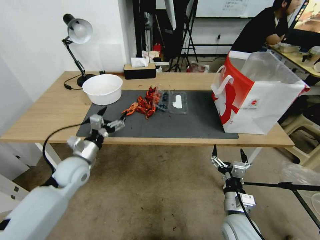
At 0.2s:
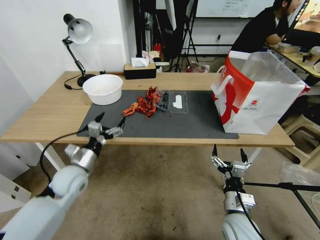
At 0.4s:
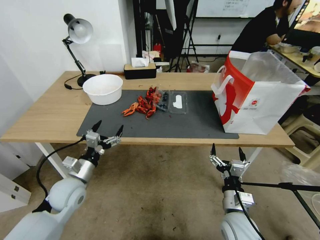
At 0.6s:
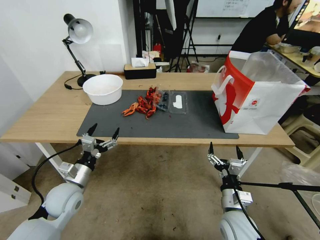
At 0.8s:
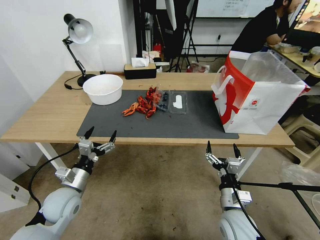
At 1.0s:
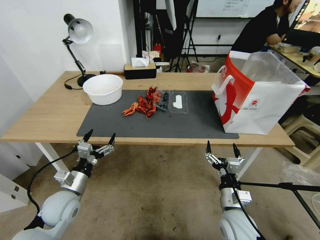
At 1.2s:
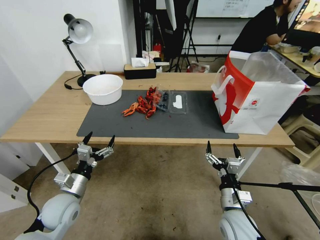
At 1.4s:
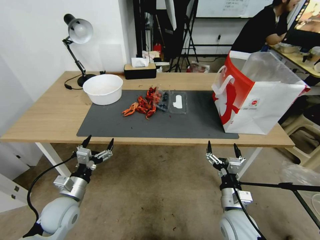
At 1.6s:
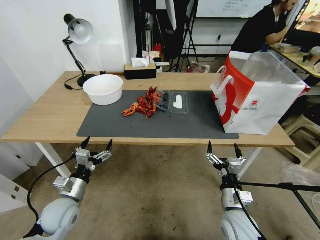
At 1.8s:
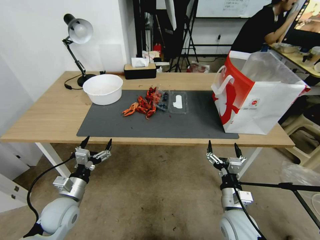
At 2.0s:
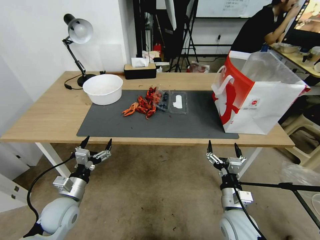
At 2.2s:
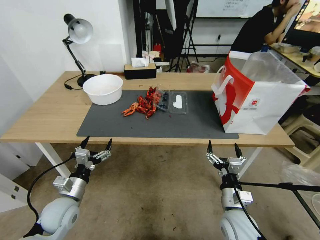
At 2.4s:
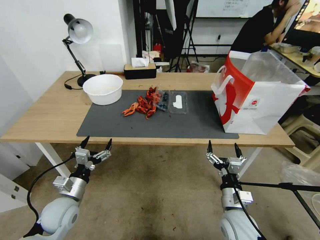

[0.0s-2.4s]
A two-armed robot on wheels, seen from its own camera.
0.0s to 1.2s: The left gripper travels backward and downward by some 10 cm.
1.2s to 2.4s: The grippers move only a little.

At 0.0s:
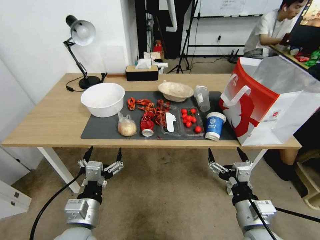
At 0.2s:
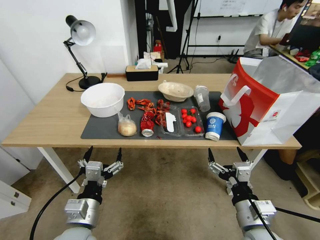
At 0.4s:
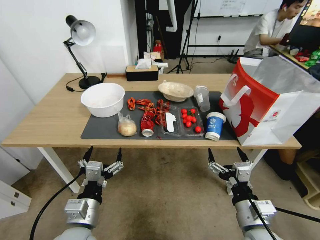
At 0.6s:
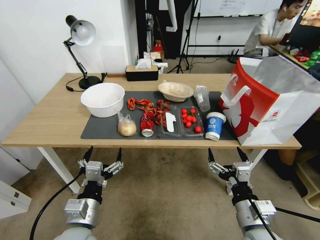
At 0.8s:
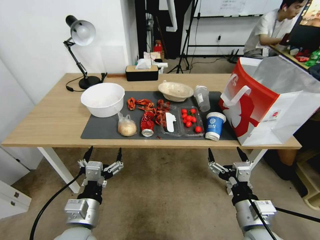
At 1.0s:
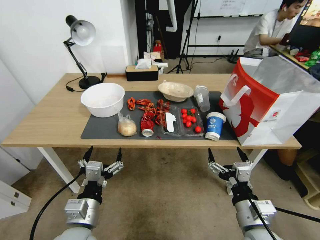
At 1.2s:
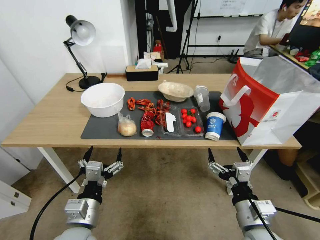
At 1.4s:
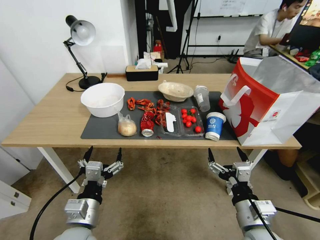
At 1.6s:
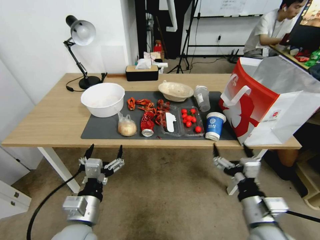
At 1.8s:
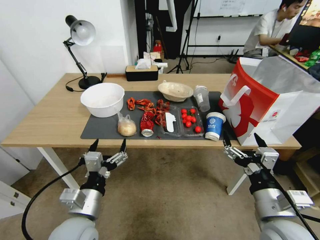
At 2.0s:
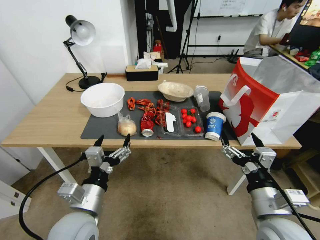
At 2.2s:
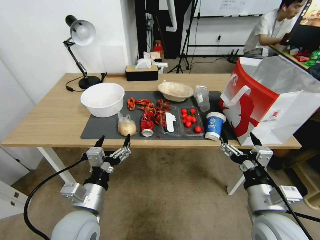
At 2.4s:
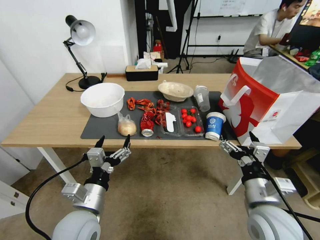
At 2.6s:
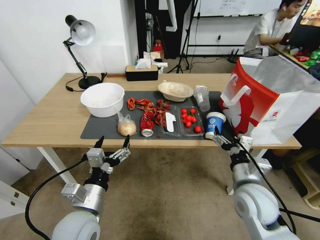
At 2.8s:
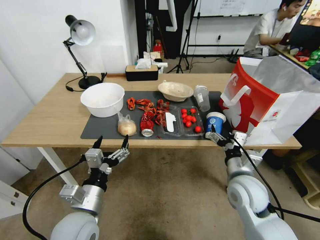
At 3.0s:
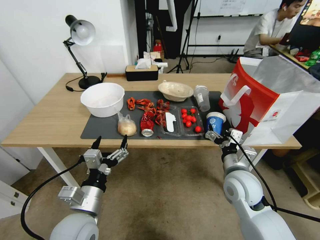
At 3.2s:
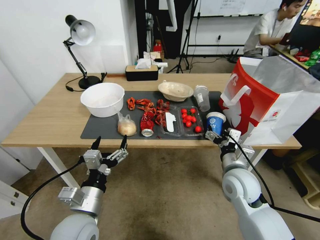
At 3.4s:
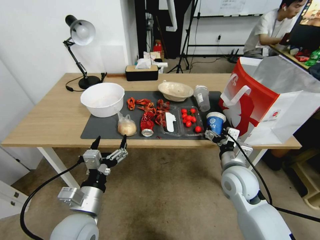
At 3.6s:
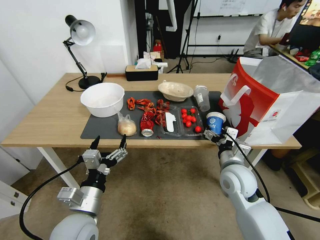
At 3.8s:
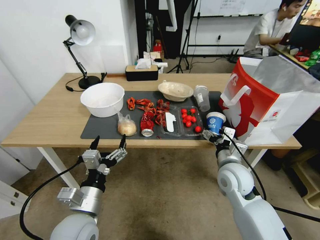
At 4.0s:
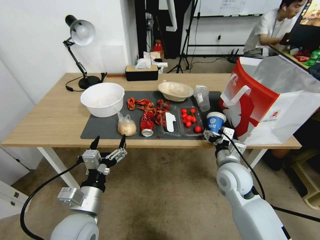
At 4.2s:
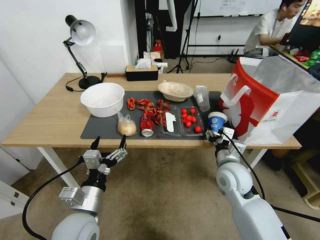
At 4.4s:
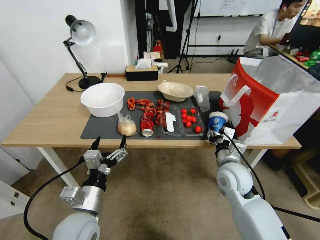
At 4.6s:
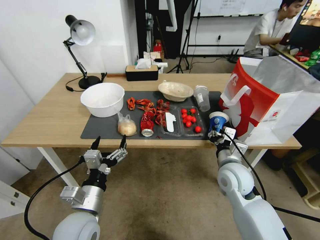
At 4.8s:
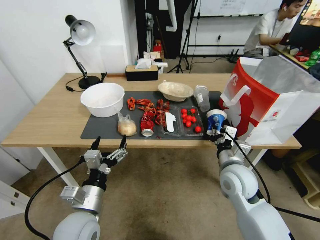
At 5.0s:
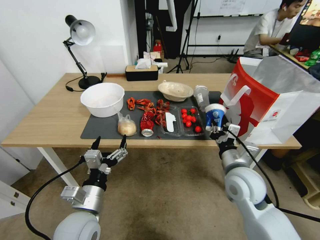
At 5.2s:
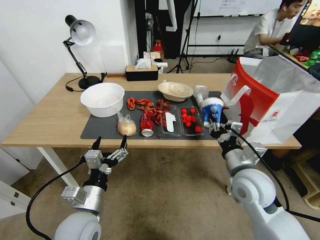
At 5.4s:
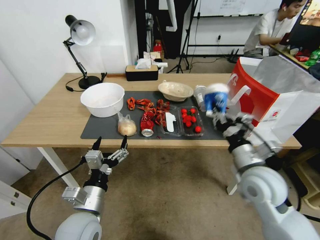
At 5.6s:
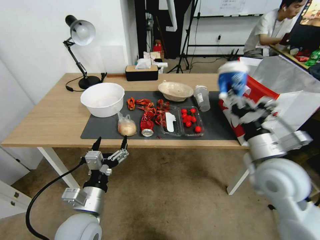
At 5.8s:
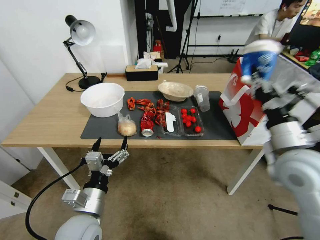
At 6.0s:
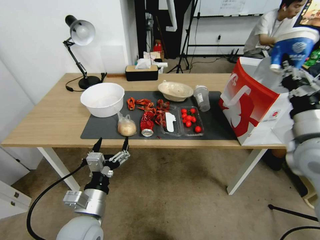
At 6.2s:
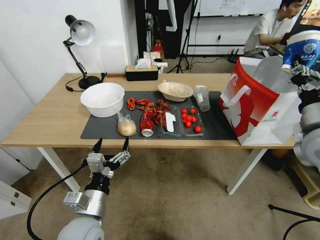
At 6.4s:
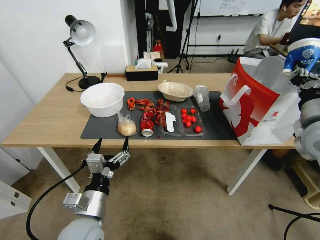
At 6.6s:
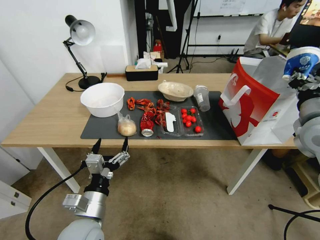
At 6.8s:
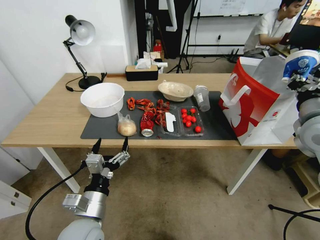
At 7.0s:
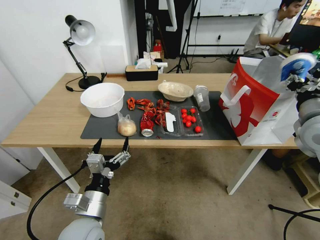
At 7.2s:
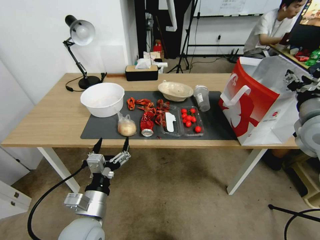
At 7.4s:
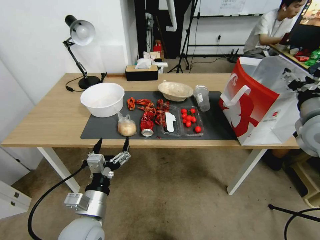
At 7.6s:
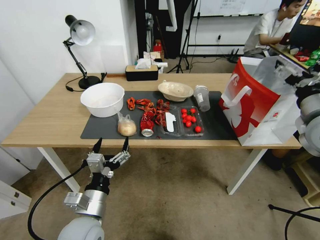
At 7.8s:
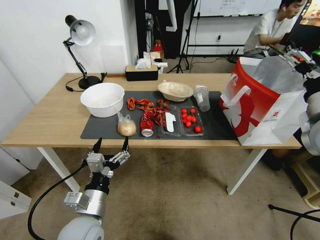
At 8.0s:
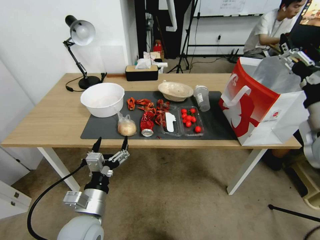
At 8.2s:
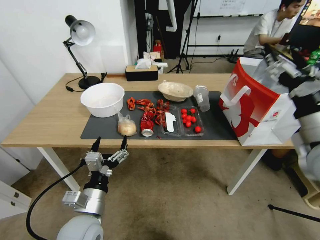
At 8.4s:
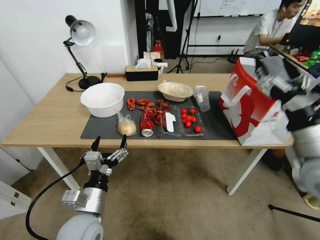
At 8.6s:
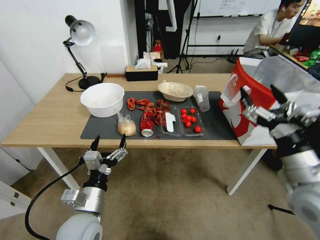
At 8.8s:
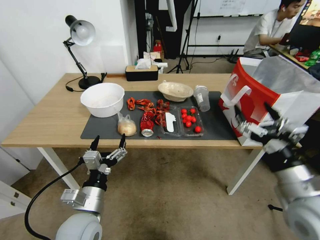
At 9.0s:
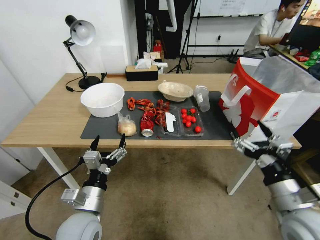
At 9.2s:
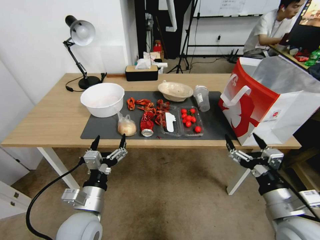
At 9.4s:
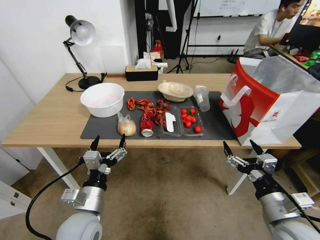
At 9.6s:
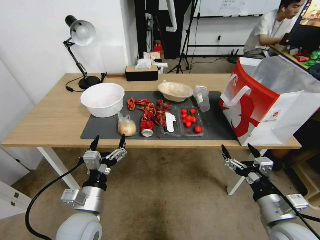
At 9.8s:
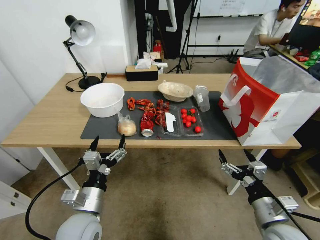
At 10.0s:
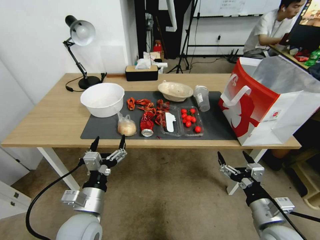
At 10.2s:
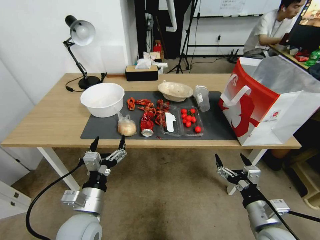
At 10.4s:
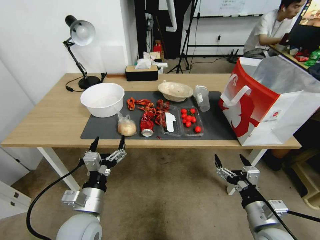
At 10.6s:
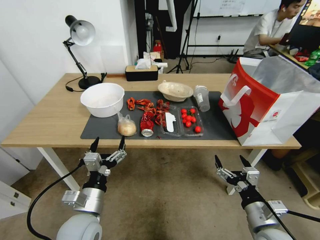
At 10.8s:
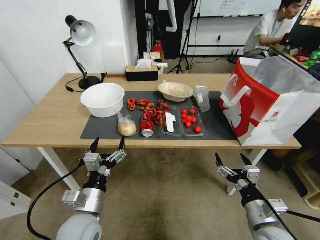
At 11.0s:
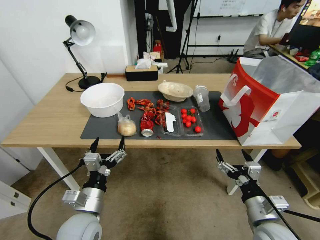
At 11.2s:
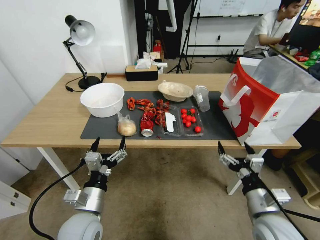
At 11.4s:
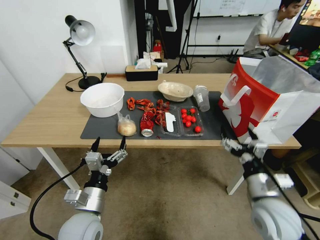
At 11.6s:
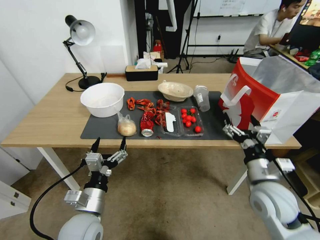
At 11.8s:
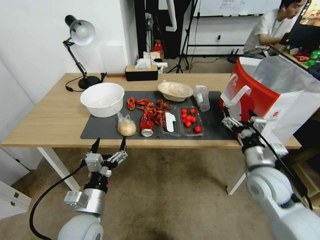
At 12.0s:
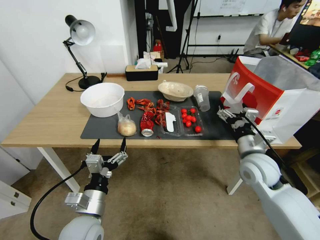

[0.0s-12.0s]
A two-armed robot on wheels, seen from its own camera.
1.6s to 3.0s: The right gripper moves forward, some 15 cm.
3.0s to 4.4s: The right gripper closes.
4.4s to 6.0s: The right gripper moves upward and to the right, approximately 20 cm.
6.0s to 7.6s: The right gripper shifts by roughly 5 cm, and opens.
7.6s to 9.0s: The right gripper goes approximately 20 cm backward, downward and to the left.
9.0s to 10.4s: The right gripper moves downward, roughly 10 cm.
10.4s to 12.0s: The right gripper shifts about 20 cm forward and upward.

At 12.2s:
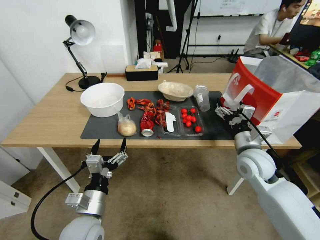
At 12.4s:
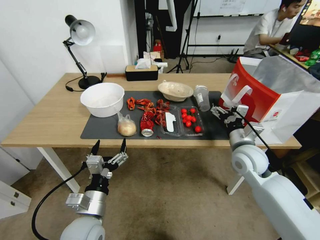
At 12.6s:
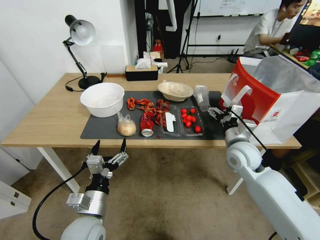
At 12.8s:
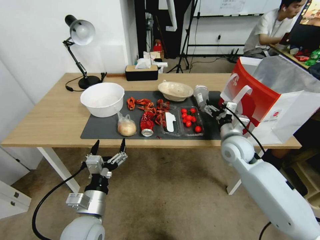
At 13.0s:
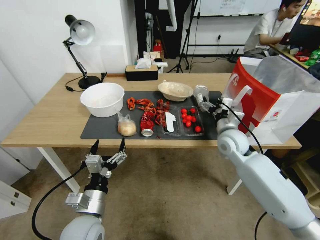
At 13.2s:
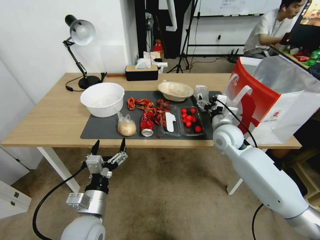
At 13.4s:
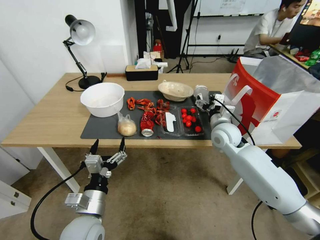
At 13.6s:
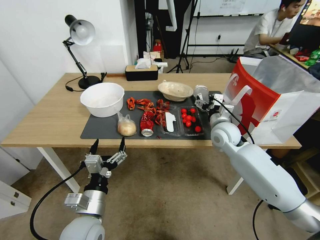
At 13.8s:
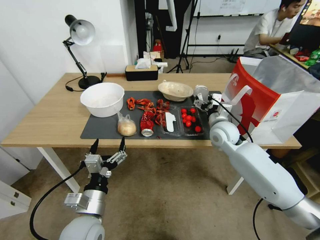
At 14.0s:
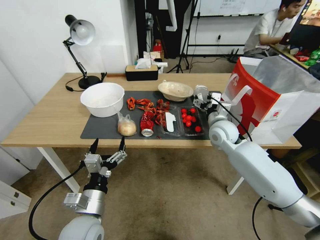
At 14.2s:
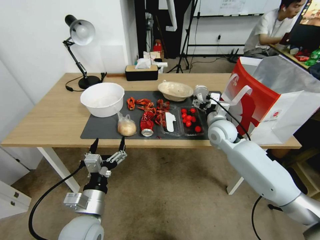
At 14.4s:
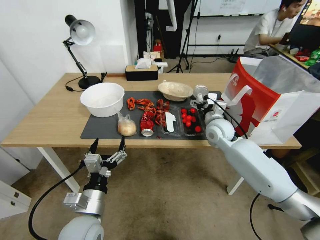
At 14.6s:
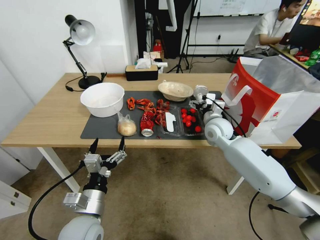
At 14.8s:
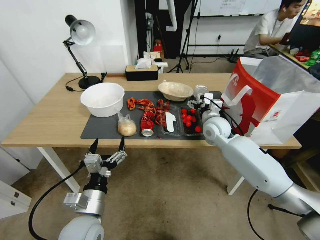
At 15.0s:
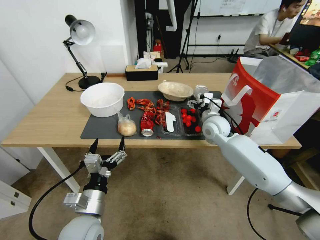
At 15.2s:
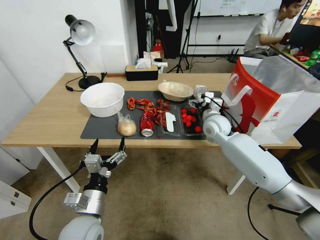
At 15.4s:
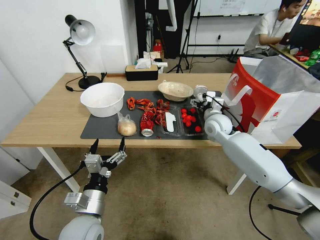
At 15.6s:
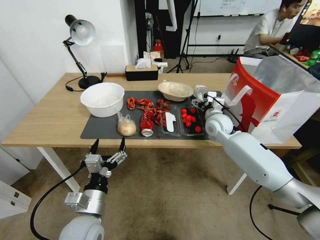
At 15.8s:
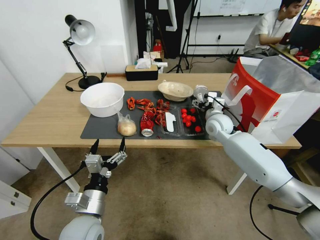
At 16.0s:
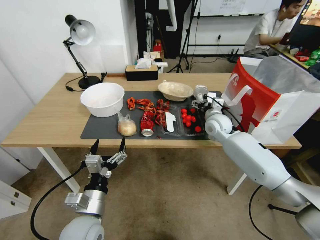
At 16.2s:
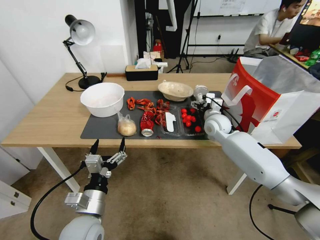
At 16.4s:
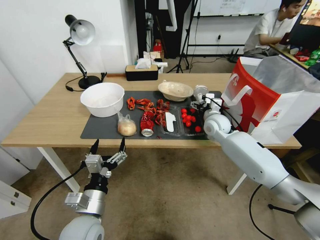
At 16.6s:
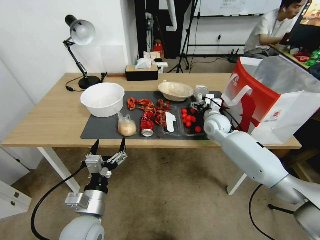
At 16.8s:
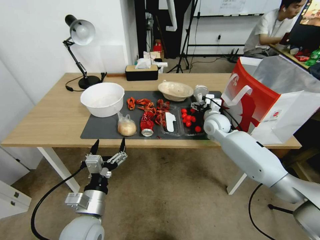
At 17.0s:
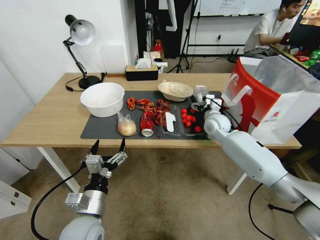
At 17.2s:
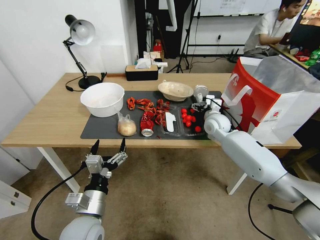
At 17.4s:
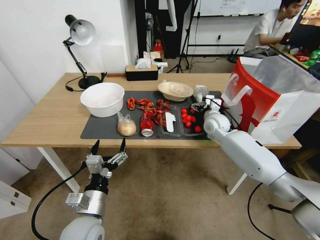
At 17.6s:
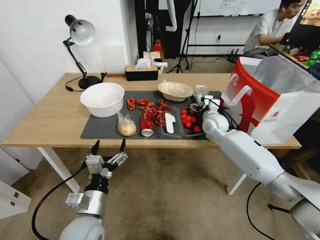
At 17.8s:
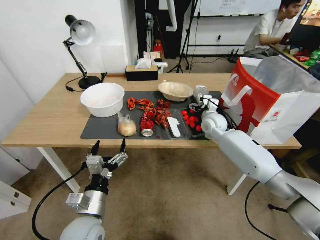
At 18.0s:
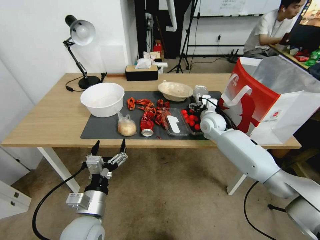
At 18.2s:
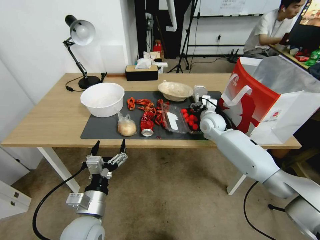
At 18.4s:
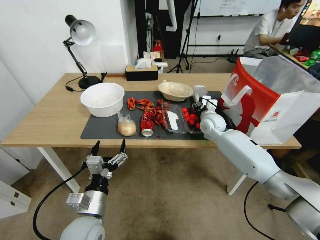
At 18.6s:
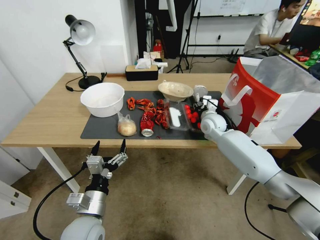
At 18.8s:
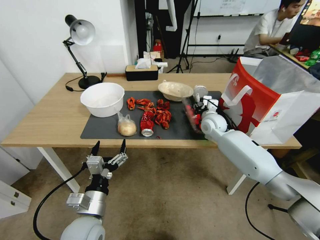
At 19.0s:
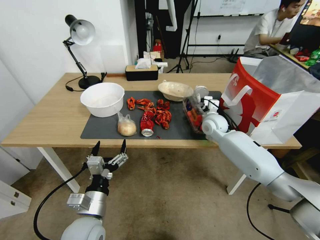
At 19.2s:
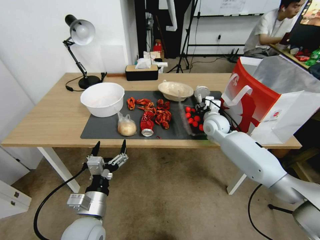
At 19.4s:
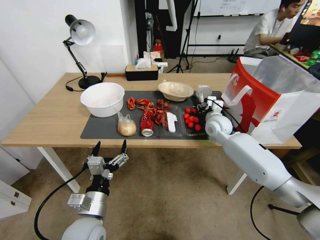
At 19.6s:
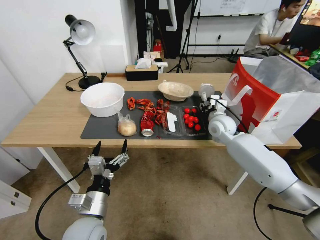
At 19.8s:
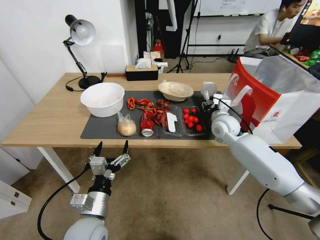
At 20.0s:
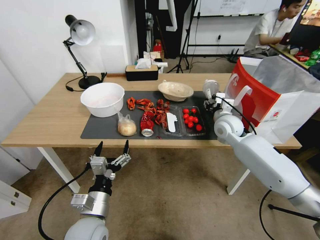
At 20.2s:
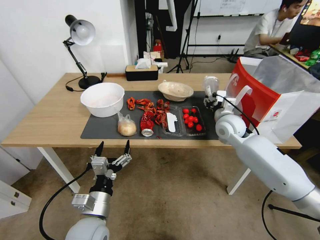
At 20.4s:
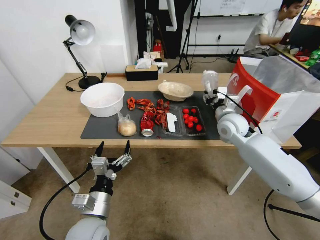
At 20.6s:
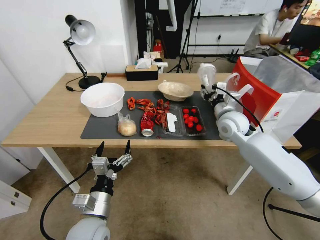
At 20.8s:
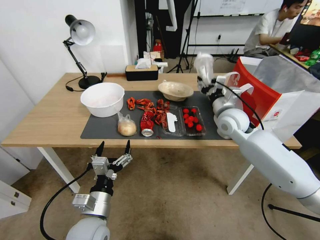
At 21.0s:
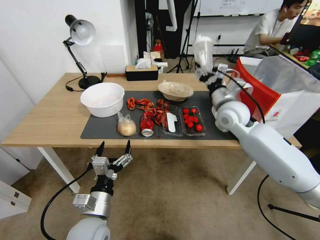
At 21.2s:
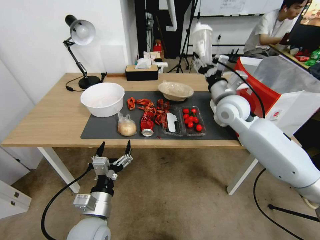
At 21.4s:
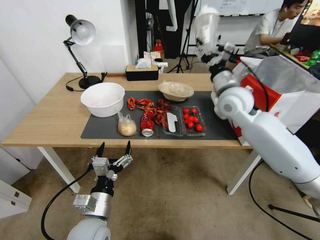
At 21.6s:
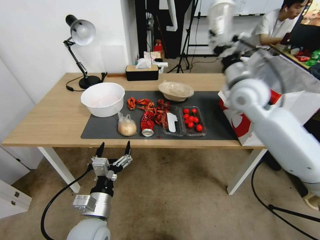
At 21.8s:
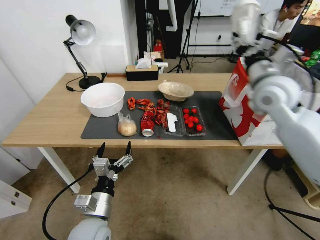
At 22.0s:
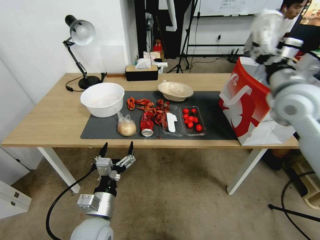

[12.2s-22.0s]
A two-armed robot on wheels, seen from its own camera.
12.2s to 13.6s: The right gripper heads forward and to the left, covering some 10 cm.
13.6s to 16.4s: The grippers stay close to where they were, moving slightly.
16.4s to 17.8s: There are only small adjustments of the grippers.
17.8s to 19.2s: The right gripper closes.
19.2s to 20.6s: The right gripper goes roughly 10 cm upward and backward.
20.6s to 22.0s: The right gripper is displaced upward, to the right and backward by some 20 cm.
